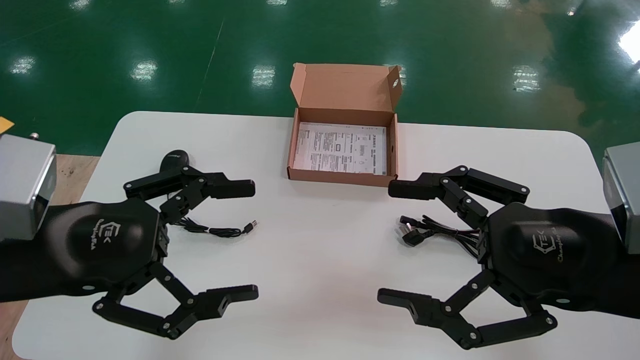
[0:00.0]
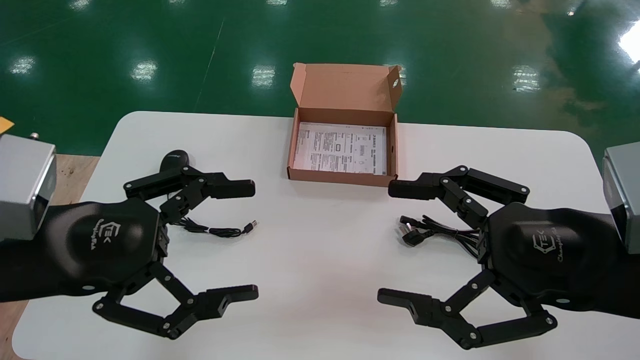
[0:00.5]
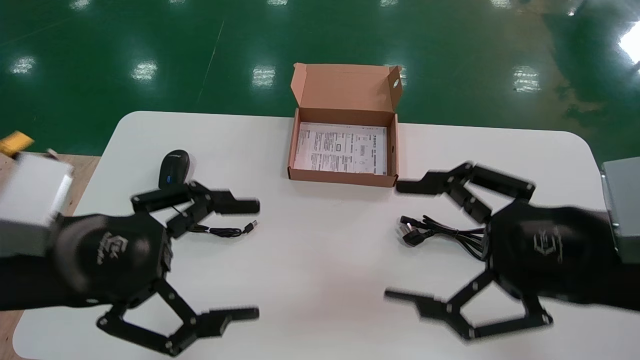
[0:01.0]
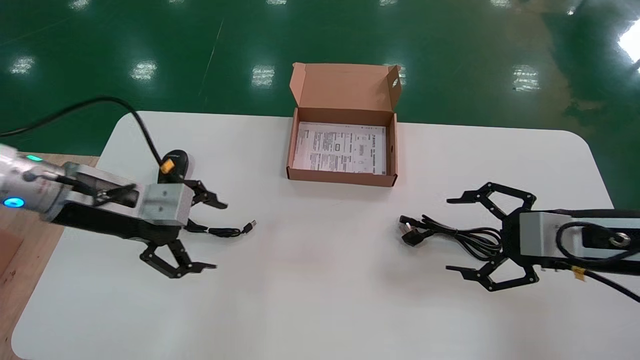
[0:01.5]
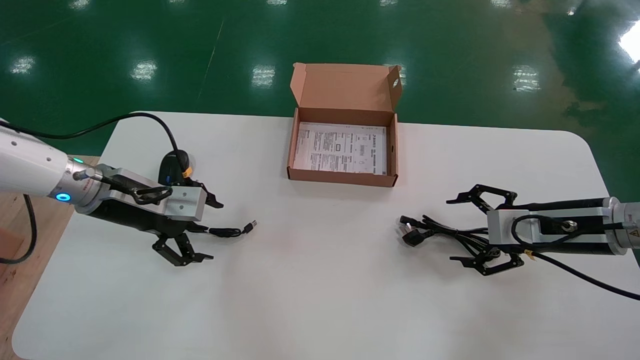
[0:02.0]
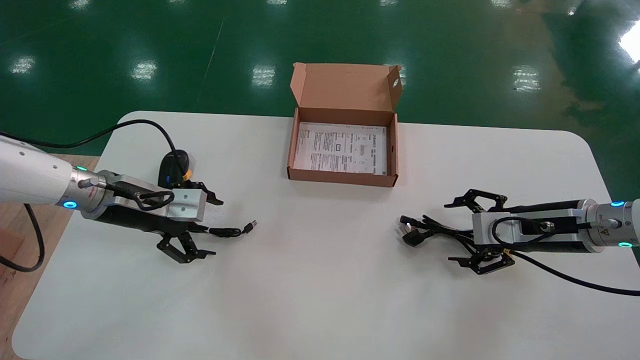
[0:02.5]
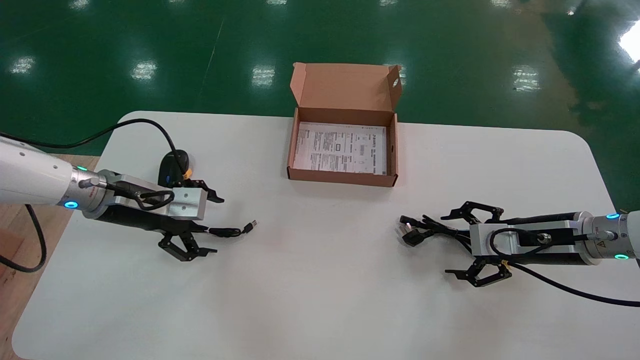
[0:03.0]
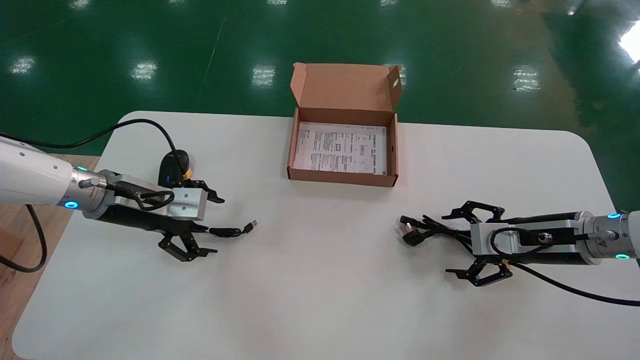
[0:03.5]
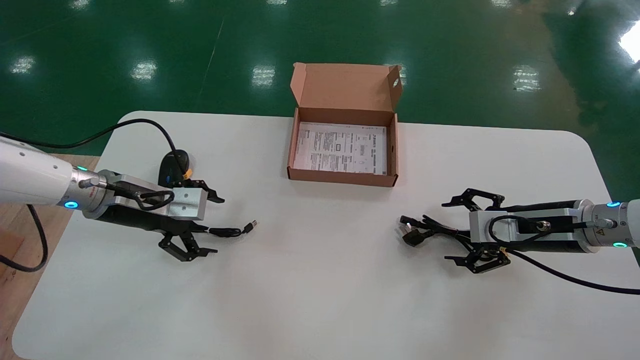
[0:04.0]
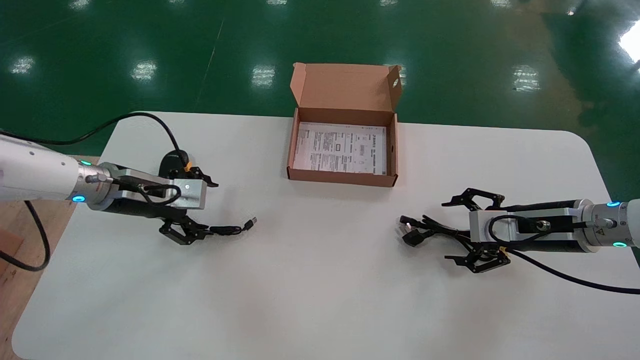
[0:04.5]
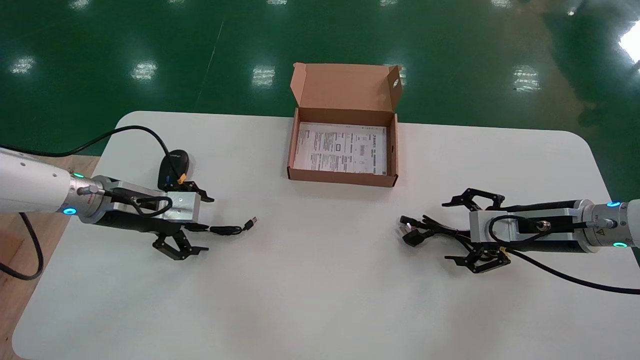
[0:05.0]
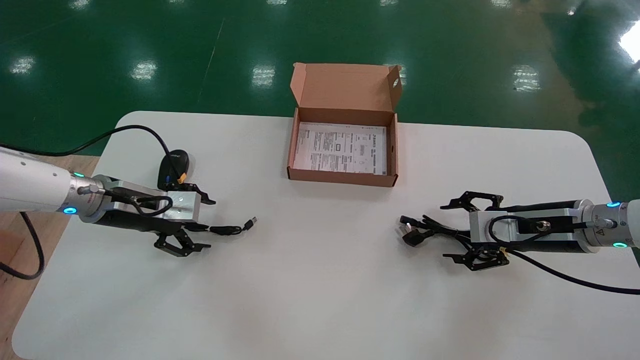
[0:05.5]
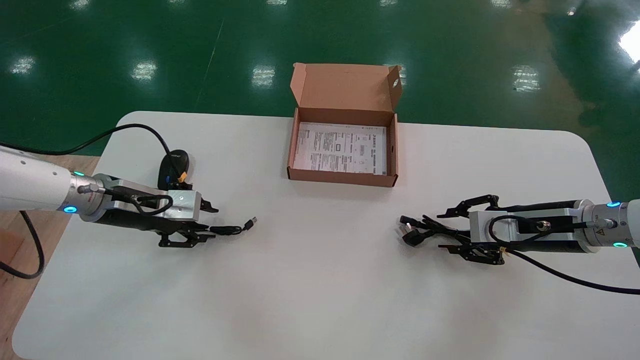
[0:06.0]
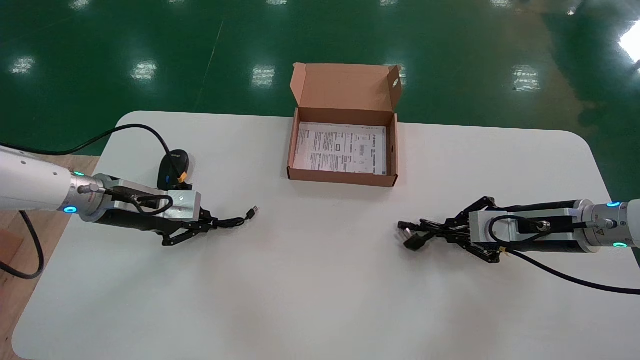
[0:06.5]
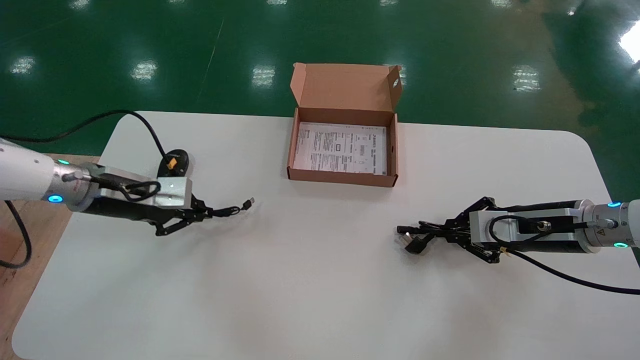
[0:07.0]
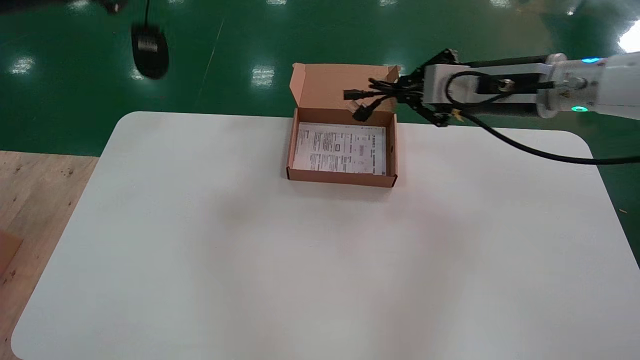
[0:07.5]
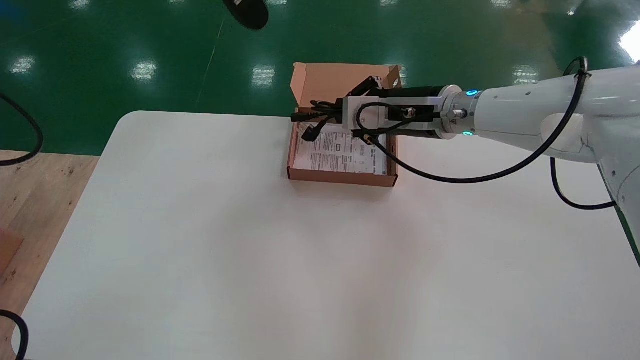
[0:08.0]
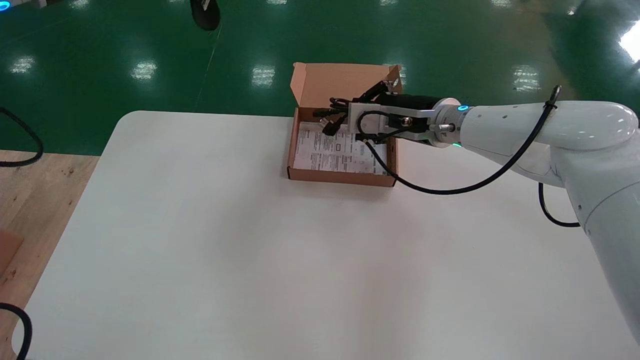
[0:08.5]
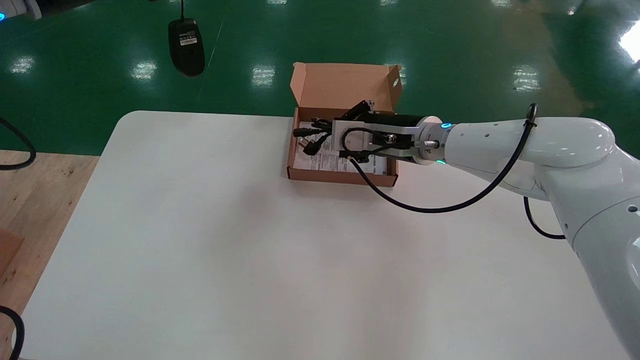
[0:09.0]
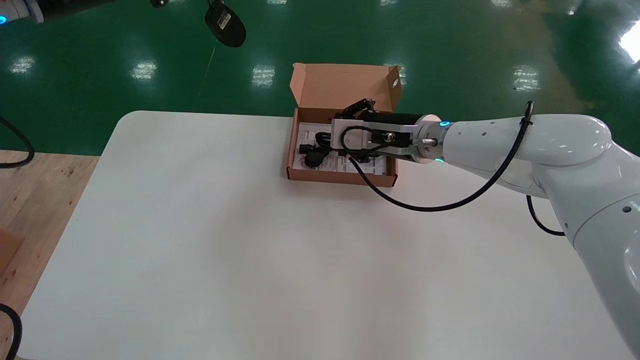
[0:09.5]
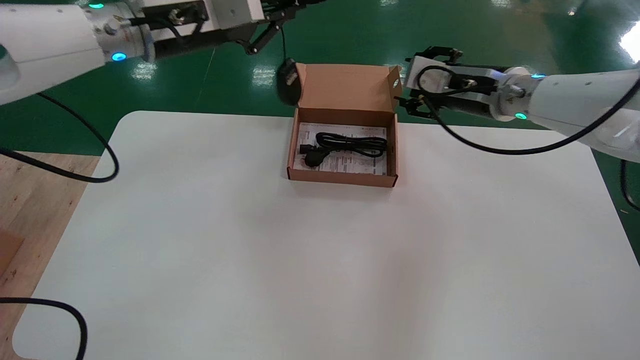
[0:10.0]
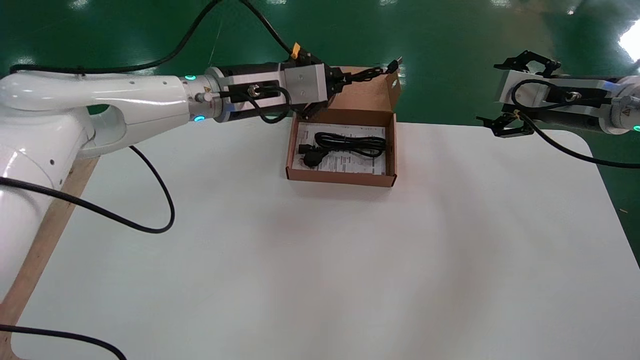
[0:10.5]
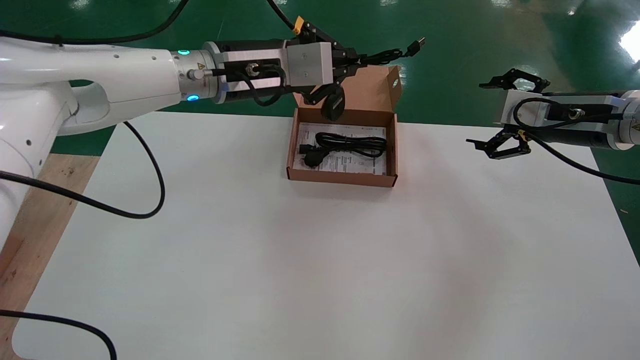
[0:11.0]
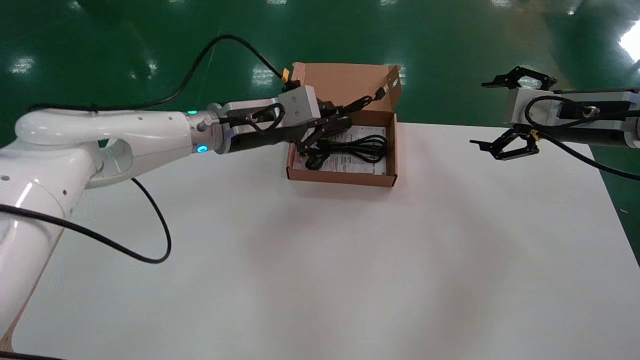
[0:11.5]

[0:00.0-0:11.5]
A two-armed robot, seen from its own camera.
Step, 0:01.0 to 0:06.5: Simultaneously pick up the mouse and power cord from the accessory packaging area.
0:00.0 to 0:02.0: The right gripper moves forward and to the right, about 20 cm; the left gripper heads forward, covering some 20 cm.
0:02.0 to 0:04.0: The grippers stay close to where they were, moving slightly.
0:04.0 to 0:06.0: The right gripper closes its fingers. Meanwhile the left gripper closes up.
0:06.0 to 0:07.5: The left gripper shifts roughly 25 cm upward, and closes its fingers, while the right gripper goes some 20 cm upward and to the left, and closes up.
0:07.5 to 0:09.5: The right gripper is displaced to the left, downward and forward by approximately 15 cm, while the left gripper moves roughly 5 cm.
0:09.5 to 0:11.5: The right gripper travels to the right by some 25 cm, and opens up. Meanwhile the left gripper travels downward, to the right and forward by approximately 25 cm.

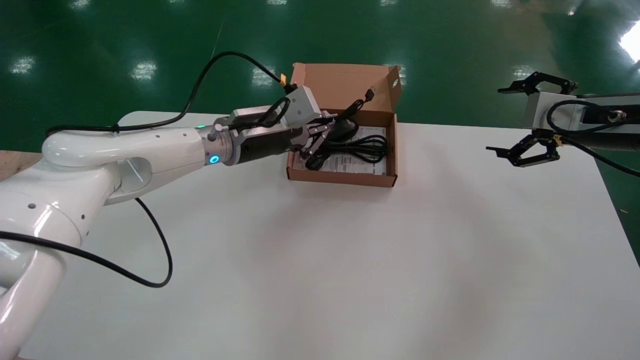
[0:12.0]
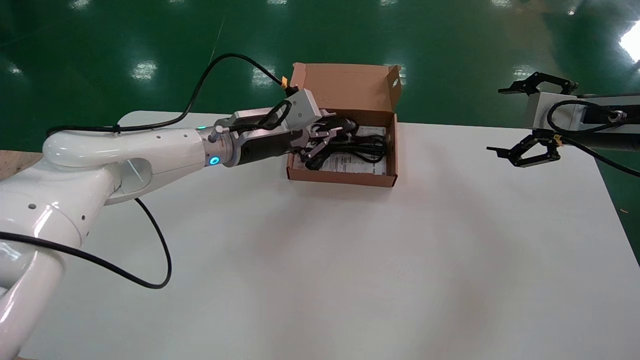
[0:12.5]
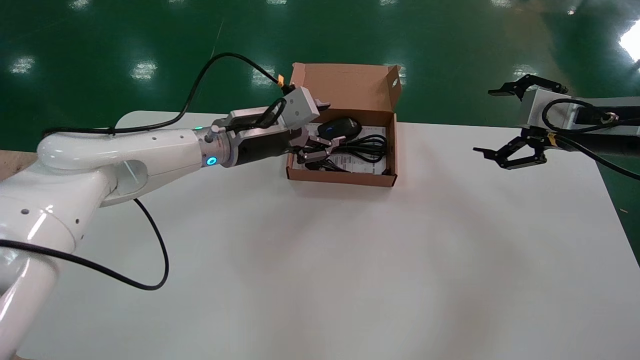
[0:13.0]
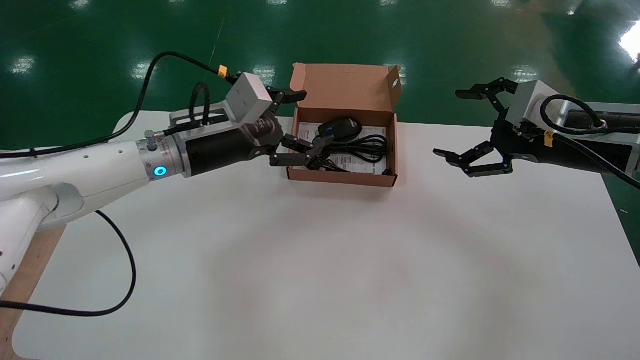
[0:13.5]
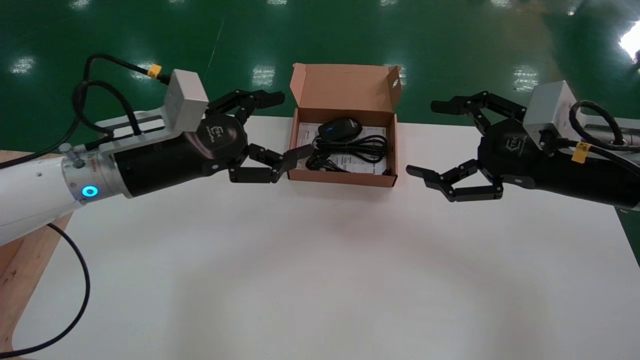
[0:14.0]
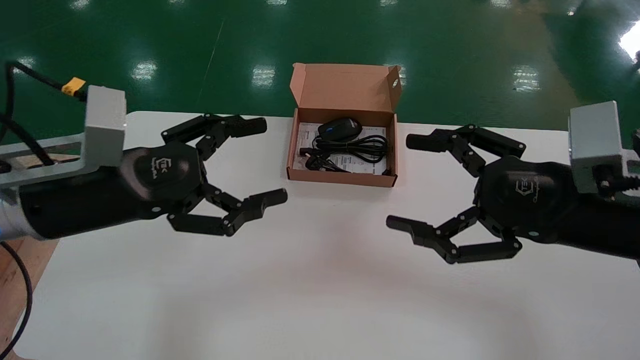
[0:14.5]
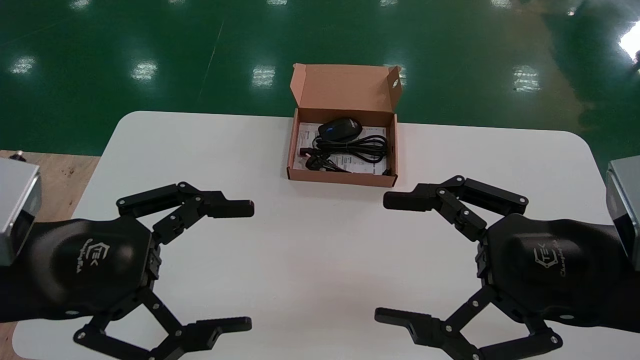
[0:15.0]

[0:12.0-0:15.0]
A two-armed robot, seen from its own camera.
0:12.0 to 0:13.5: The right gripper moves some 5 cm, while the left gripper goes approximately 10 cm backward and to the left, and opens up.
0:13.5 to 0:15.0: The left gripper is displaced backward by about 25 cm. Meanwhile the right gripper travels backward and to the left by roughly 20 cm.
